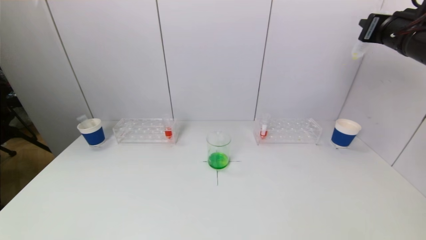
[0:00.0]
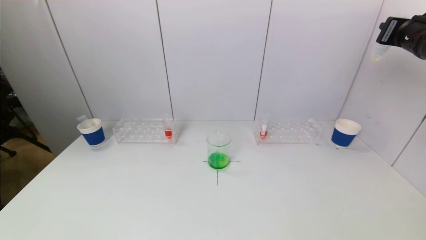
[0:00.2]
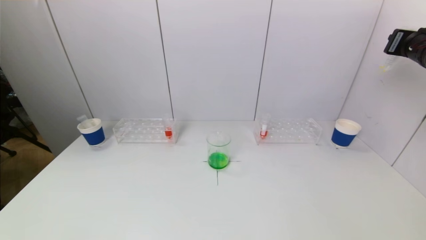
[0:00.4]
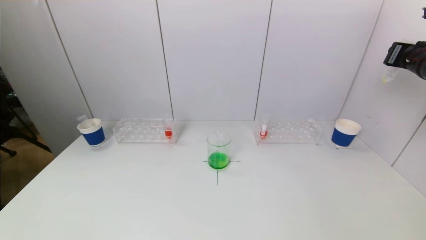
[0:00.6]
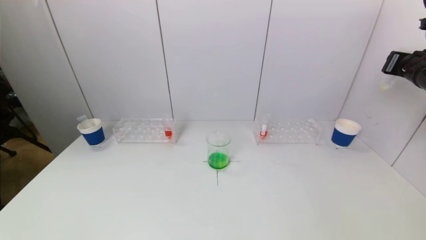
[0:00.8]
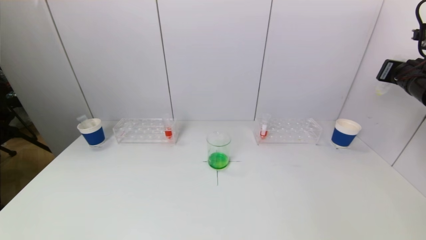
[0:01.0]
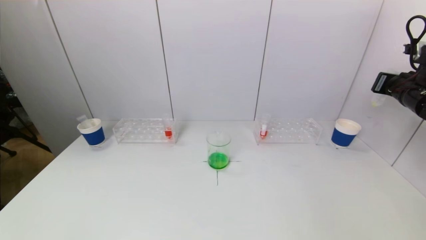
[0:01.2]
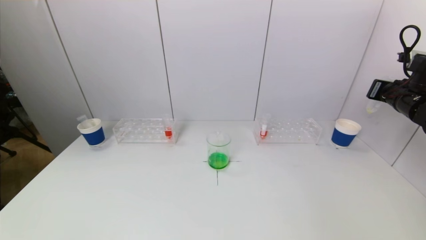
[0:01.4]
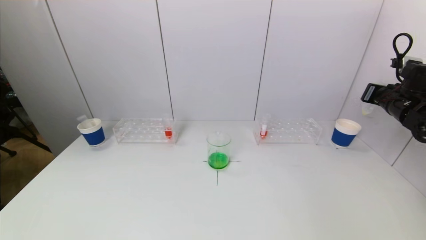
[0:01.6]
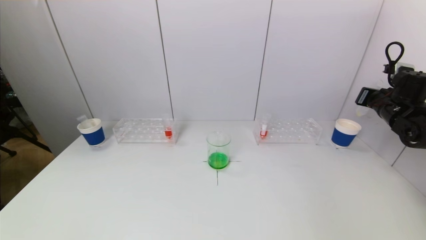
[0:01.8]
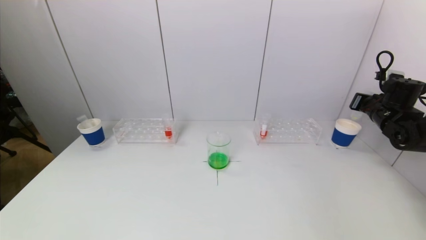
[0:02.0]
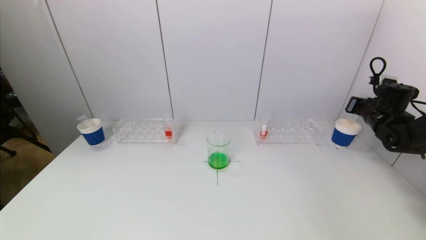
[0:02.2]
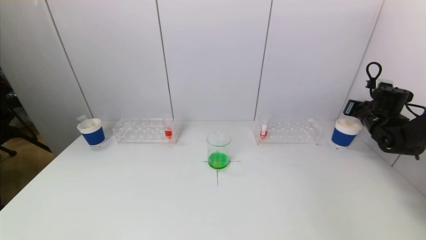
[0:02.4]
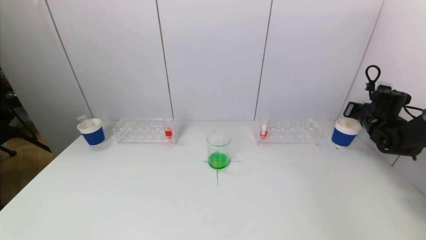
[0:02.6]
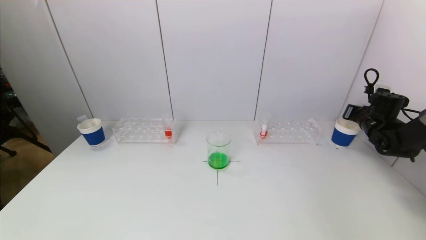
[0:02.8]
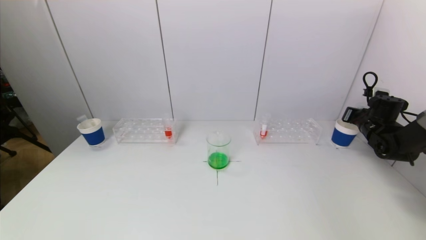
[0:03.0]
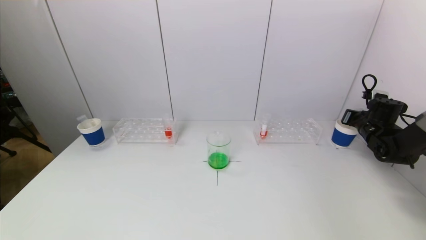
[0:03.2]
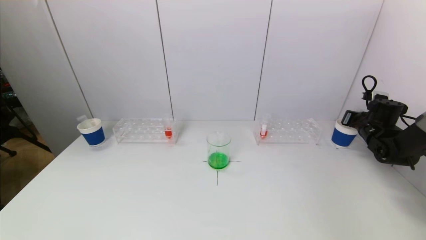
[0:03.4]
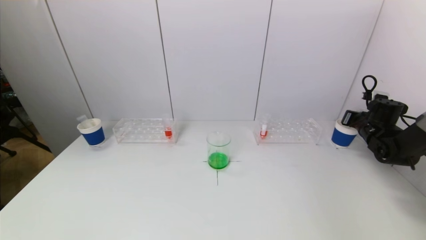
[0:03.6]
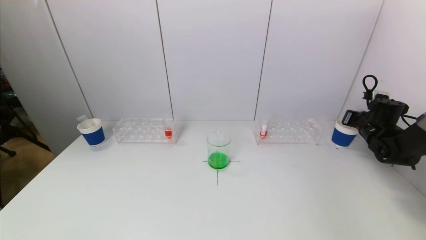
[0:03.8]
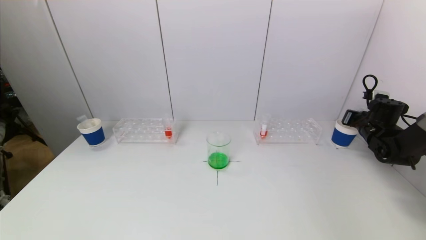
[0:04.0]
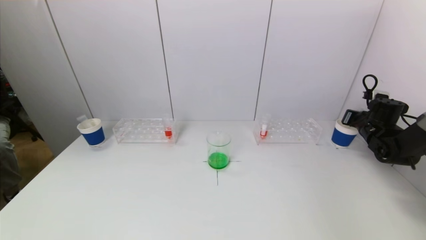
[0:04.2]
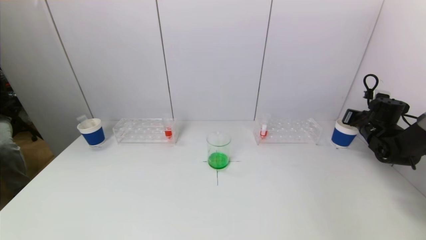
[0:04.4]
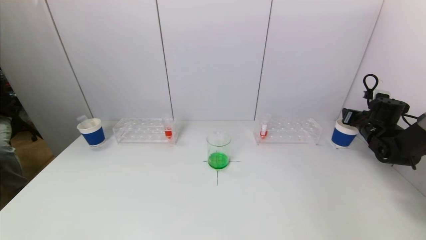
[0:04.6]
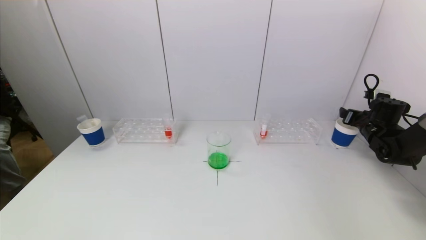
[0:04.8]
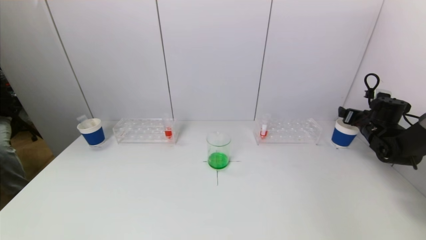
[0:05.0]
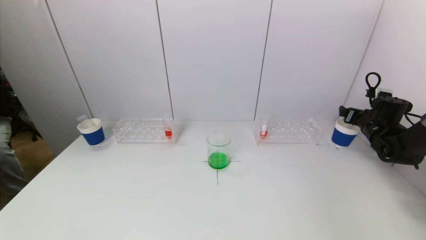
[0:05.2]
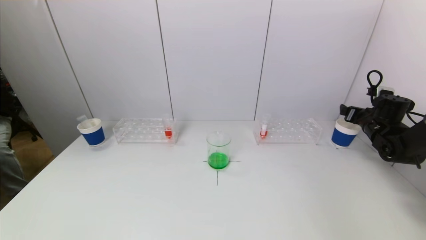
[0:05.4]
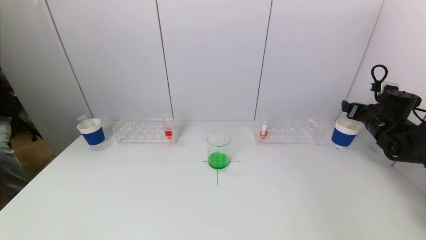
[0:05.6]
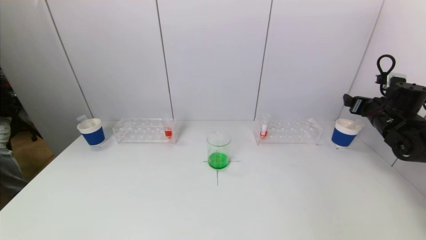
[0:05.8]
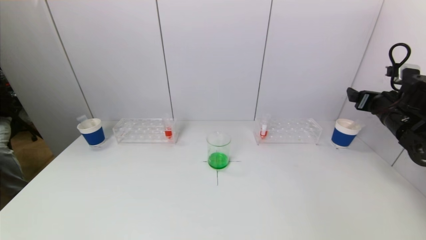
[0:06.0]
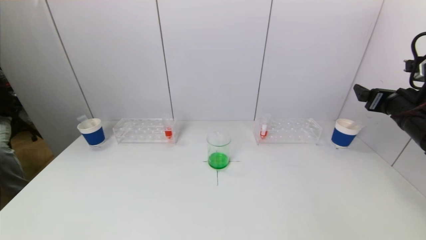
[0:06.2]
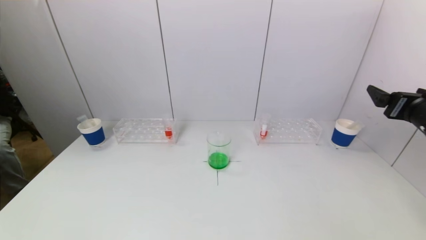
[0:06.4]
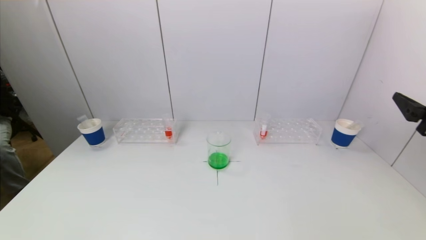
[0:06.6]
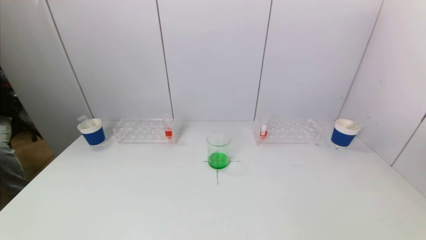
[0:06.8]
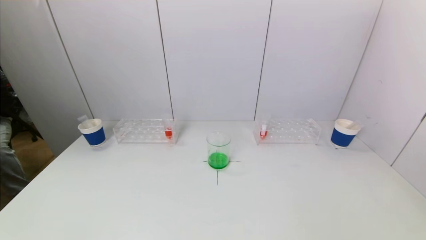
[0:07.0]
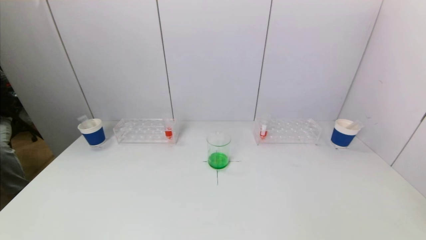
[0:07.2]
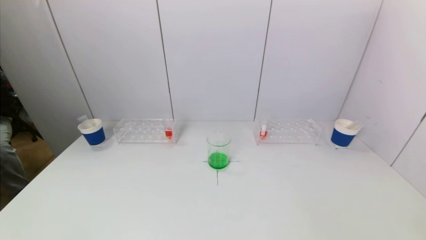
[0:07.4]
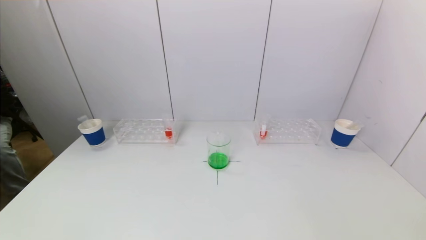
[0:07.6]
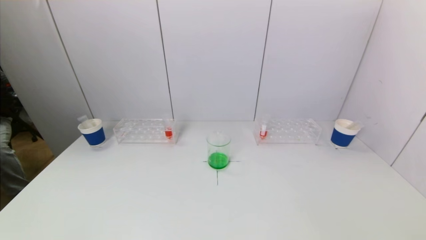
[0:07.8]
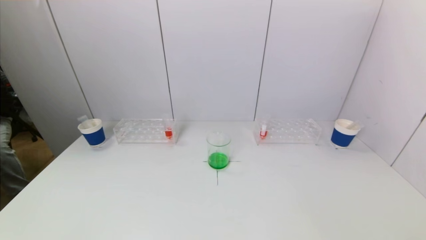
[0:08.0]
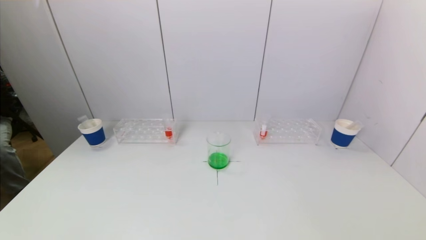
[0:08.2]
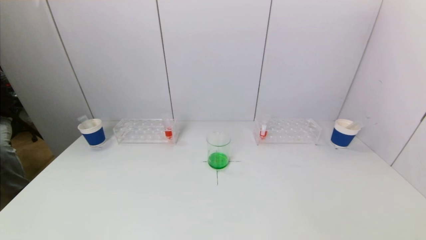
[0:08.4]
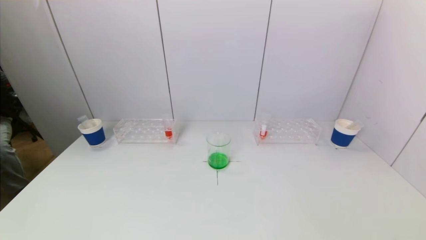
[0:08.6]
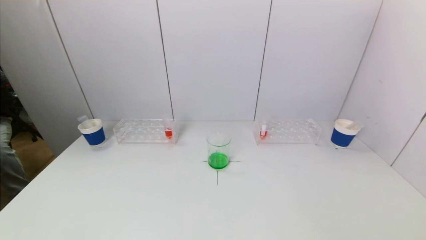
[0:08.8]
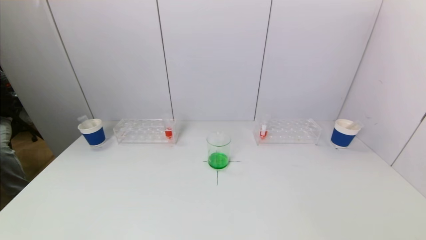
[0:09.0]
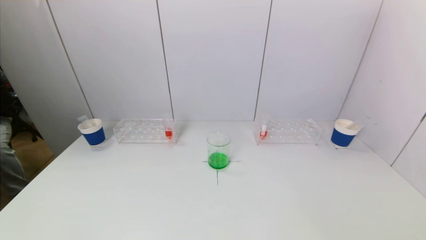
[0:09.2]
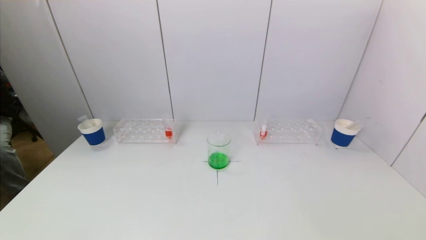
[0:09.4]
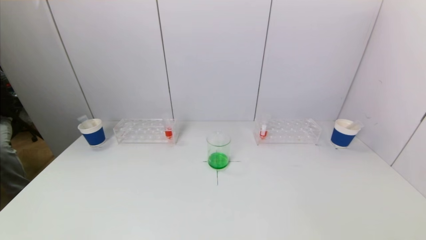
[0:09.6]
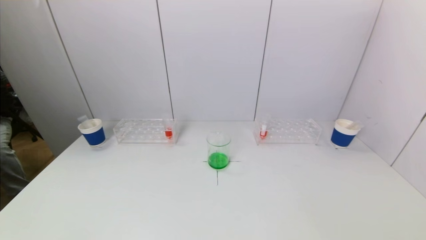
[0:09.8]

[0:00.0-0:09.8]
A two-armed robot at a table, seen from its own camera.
Task of the whole recording: pick up a test tube with pigment on left test tube rack and a test tube with pigment on right test tube rack by grippers and pour them into the beaker.
Step, 0:00.0 to 0:05.2: Place the test tube into the paper cup with the right gripper.
0:00.0 to 0:01.4: The right gripper is displaced downward and to the right by about 15 cm.
0:01.4 to 0:02.8: The right gripper heads downward and forward, covering about 15 cm.
0:02.8 to 0:04.2: The grippers make only small movements.
0:04.2 to 0:05.6: The right gripper opens its fingers.
0:05.6 to 0:07.0: The right gripper is displaced backward by approximately 35 cm.
0:08.4 to 0:09.8: Both grippers stay put.

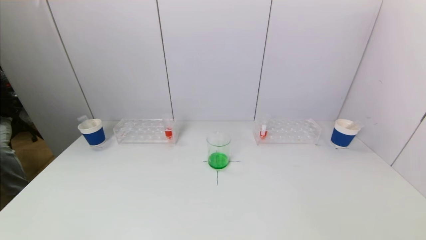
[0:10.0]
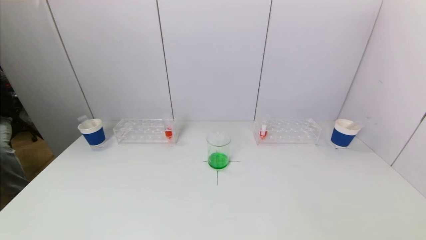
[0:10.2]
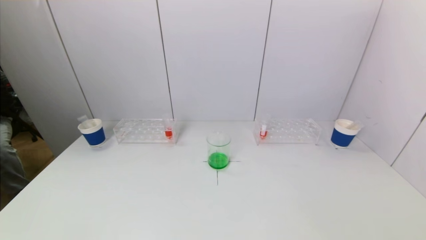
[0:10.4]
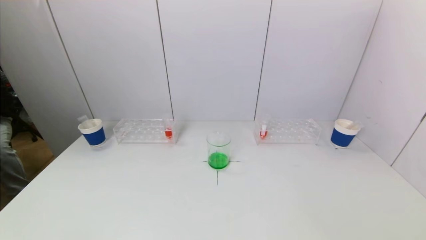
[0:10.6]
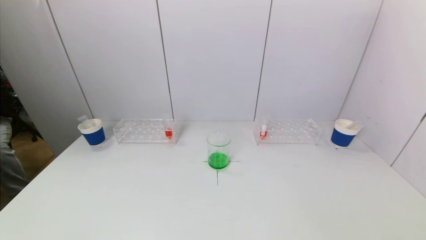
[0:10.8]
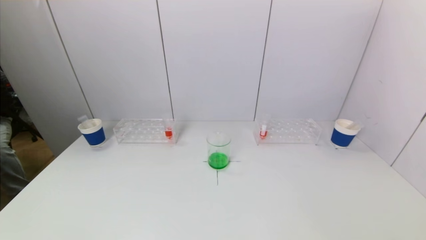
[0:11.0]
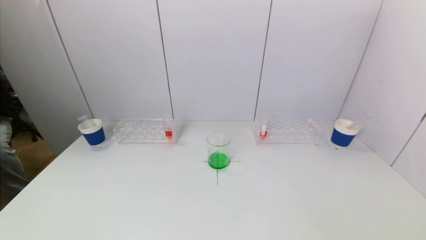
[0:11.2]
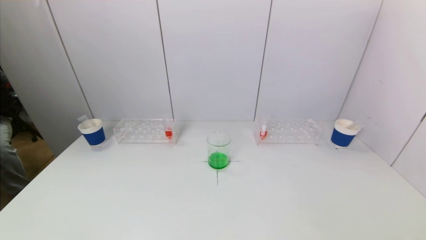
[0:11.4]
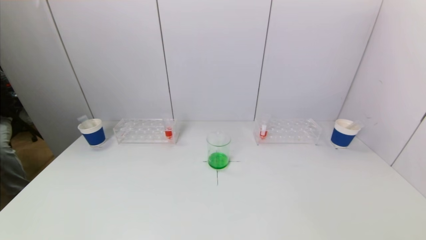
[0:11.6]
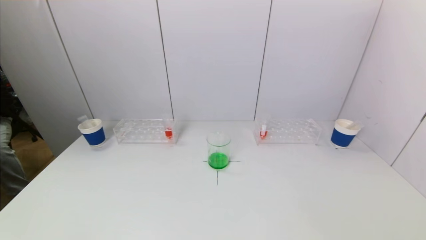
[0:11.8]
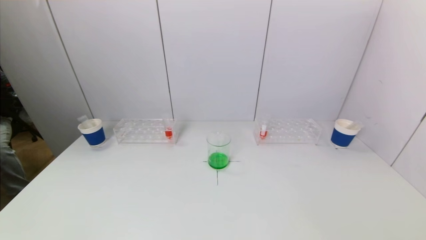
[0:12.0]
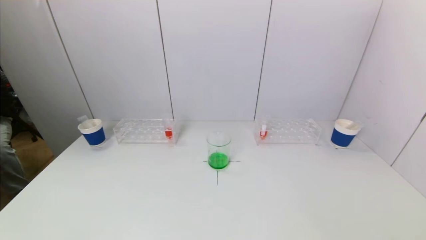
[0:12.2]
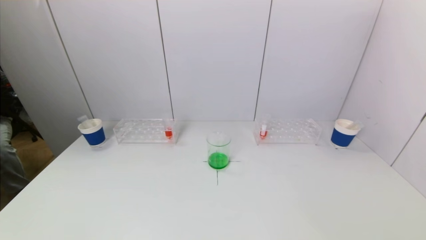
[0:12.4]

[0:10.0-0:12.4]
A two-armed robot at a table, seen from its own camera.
Task of the whole recording: pick up a test tube with pigment on left test tube rack and a test tube with pigment on right test tube rack by grippers and pour them into the beaker.
0:10.0 to 0:12.4: Neither gripper changes place.
